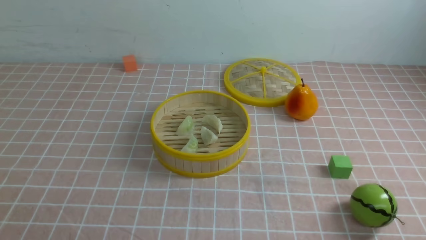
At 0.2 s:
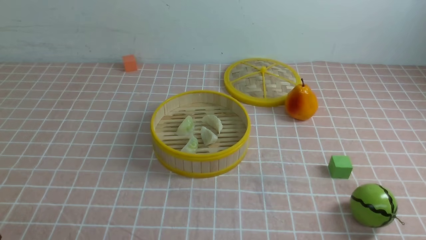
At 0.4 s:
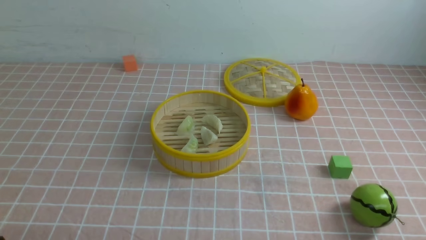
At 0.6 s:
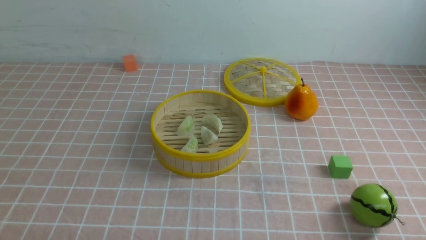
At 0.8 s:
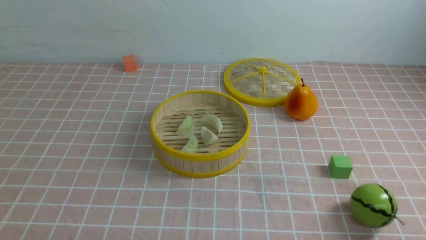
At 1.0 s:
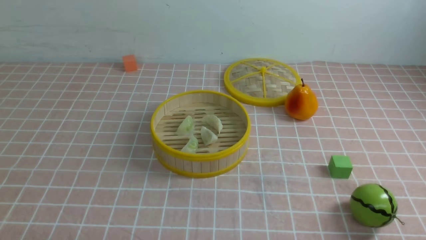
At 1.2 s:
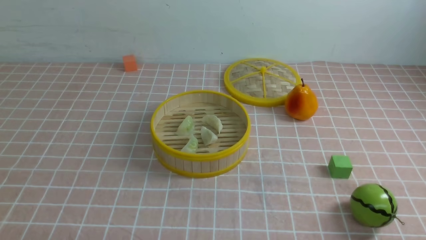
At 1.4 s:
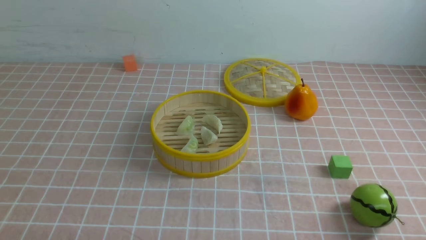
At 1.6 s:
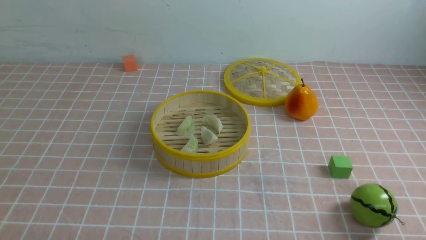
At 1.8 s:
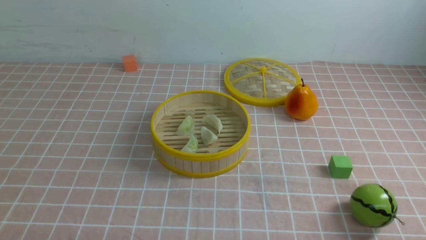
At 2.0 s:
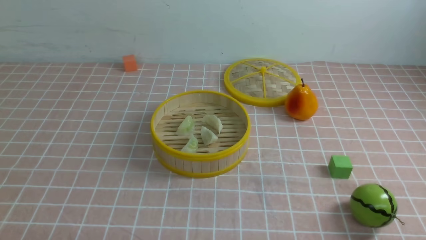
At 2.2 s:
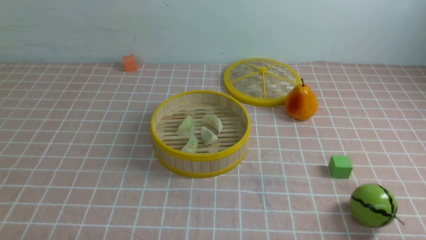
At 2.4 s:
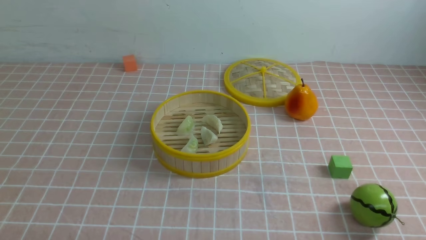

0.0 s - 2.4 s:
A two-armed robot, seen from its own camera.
Task of the whole recording: put the dumplings into the steamer on the table with the pink tablecloth.
1.2 s - 2.4 s: Neither gripper changes place.
